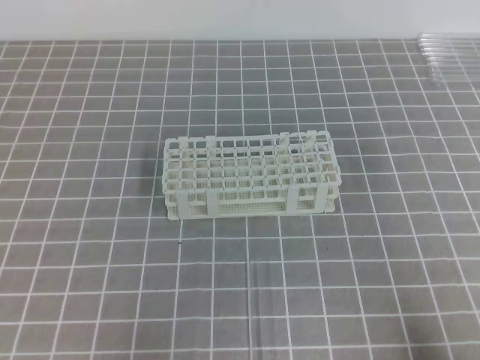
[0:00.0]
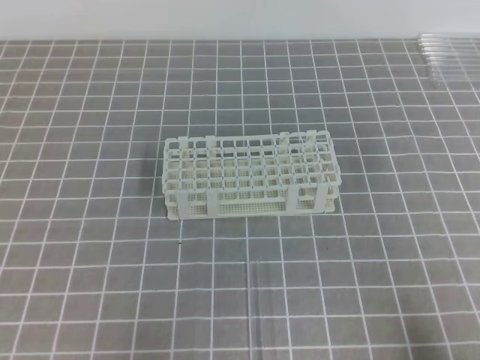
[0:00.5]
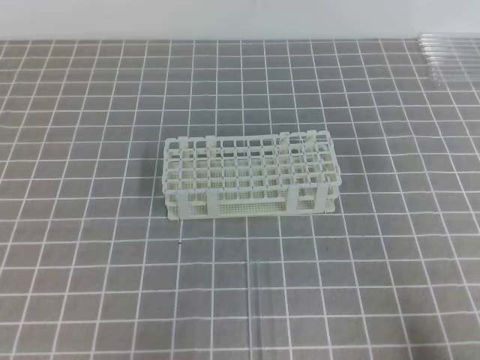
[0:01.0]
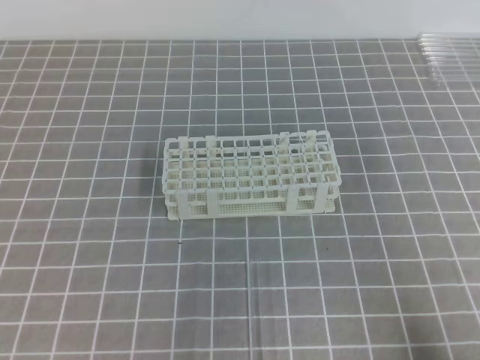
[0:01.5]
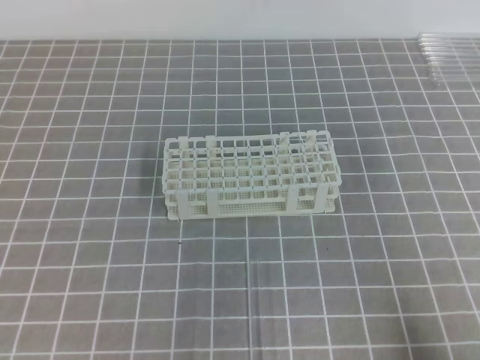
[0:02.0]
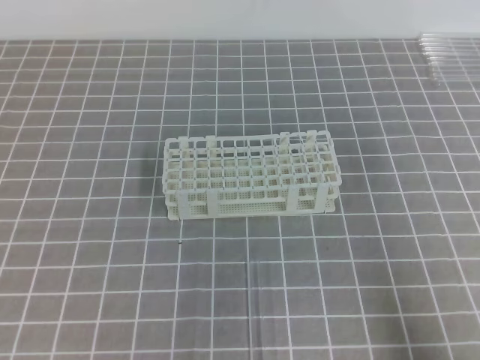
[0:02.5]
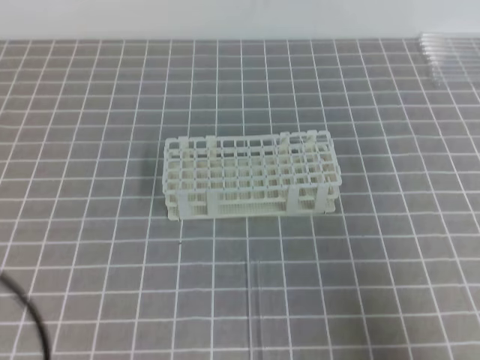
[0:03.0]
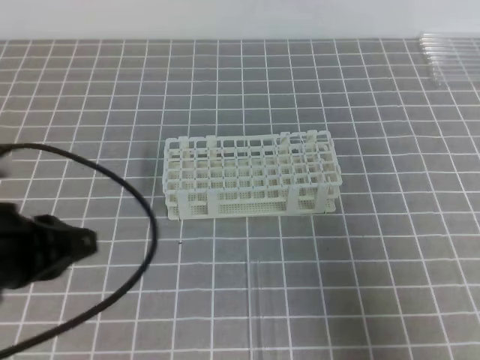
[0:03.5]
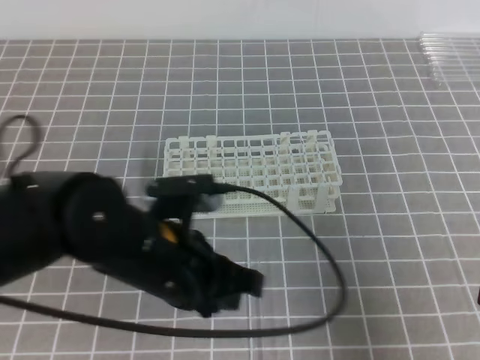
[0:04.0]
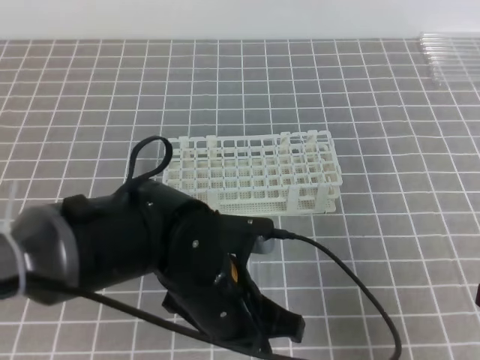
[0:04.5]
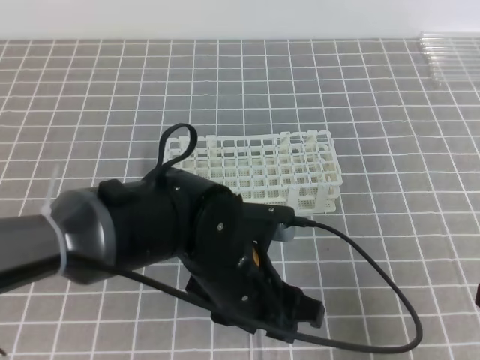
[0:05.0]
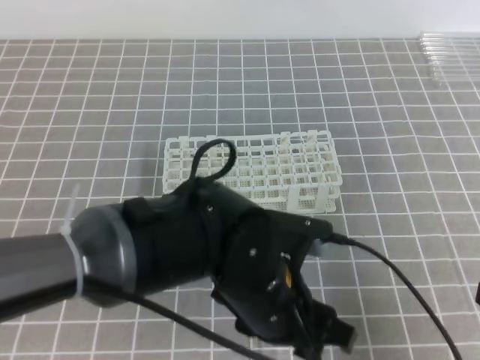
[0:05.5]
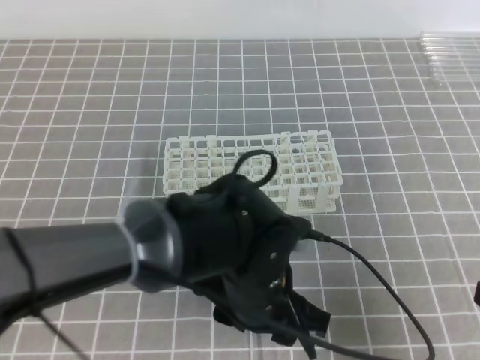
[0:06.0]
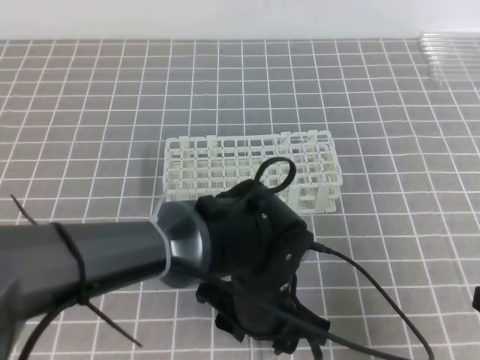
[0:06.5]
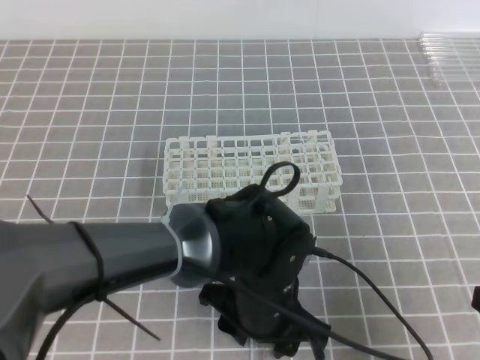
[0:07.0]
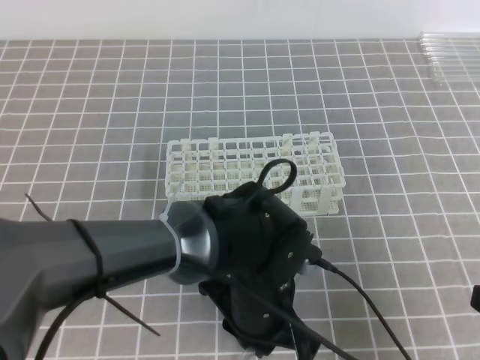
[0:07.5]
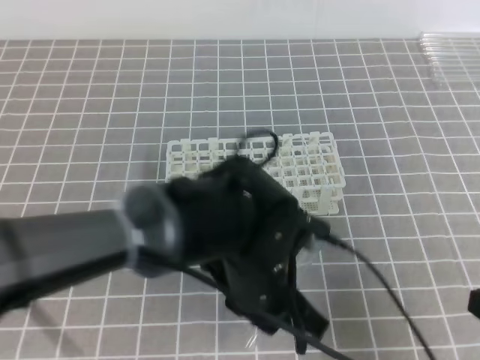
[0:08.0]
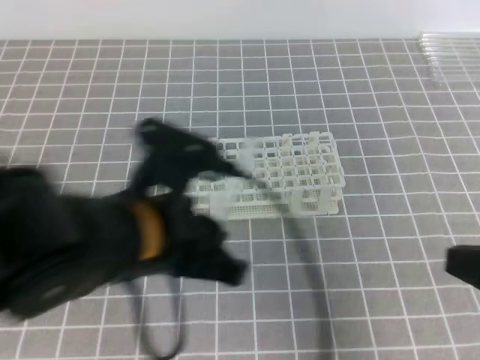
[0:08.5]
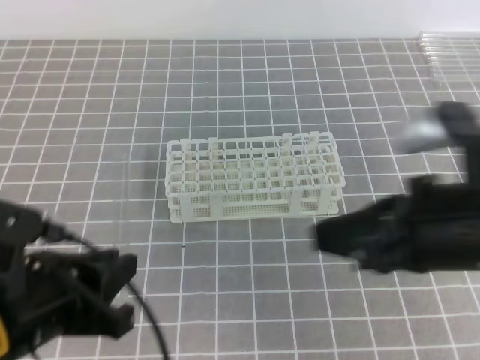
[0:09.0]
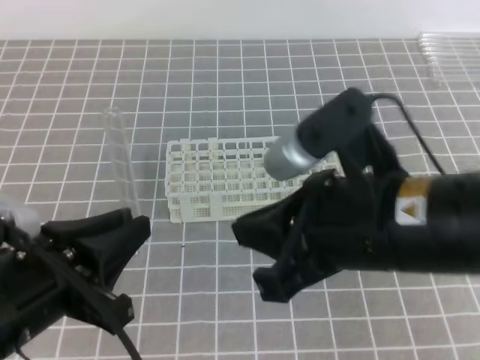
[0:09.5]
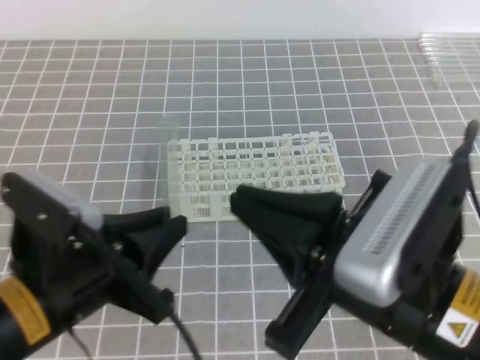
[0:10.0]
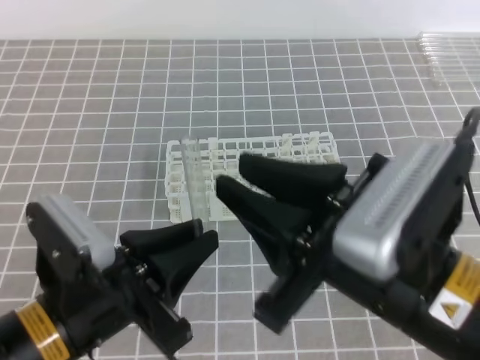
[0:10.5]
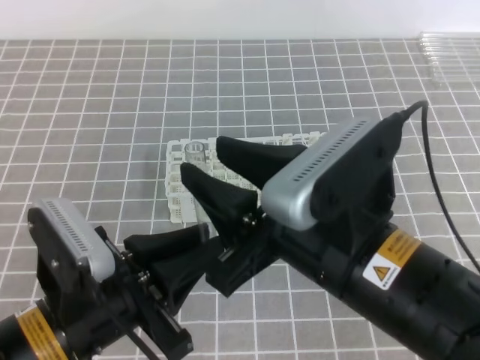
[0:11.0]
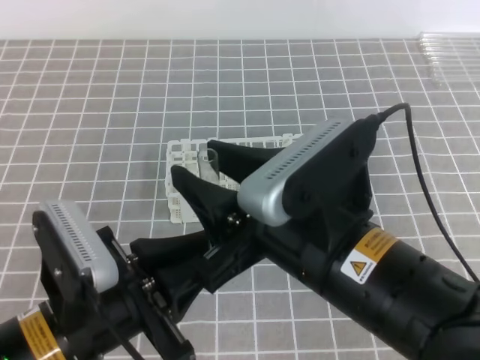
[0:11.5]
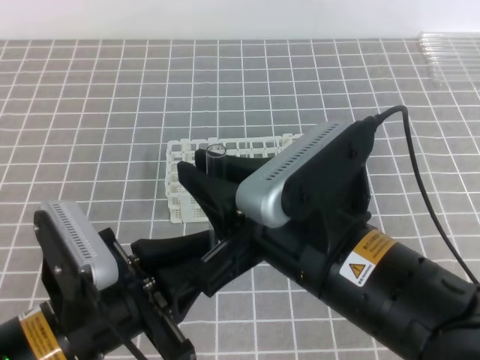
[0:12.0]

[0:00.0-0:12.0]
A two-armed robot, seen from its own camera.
0:02.0 to 0:04.0: The right gripper is displaced upward and forward by roughly 10 cm, while the left gripper goes some 25 cm to the right and forward.
0:04.0 to 0:06.0: The left gripper is displaced to the right by about 10 cm, and opens its fingers.
0:06.0 to 0:08.0: The left gripper closes.
0:08.0 to 0:10.0: The left gripper goes approximately 15 cm to the left. The right gripper shifts roughly 20 cm to the left and upward.
0:10.0 to 0:12.0: The right gripper changes place by approximately 5 cm, and opens, then closes once more.

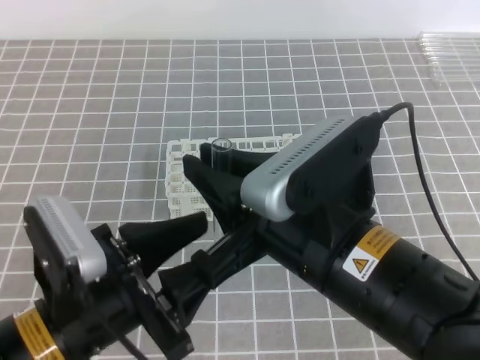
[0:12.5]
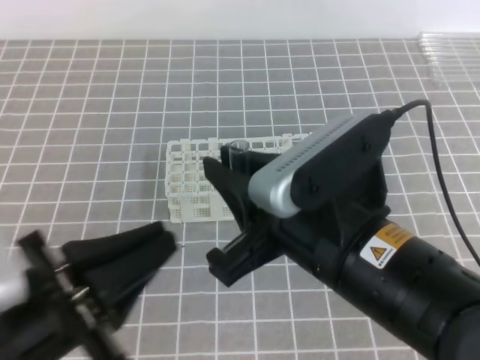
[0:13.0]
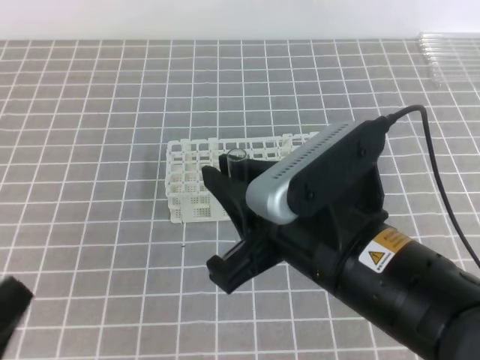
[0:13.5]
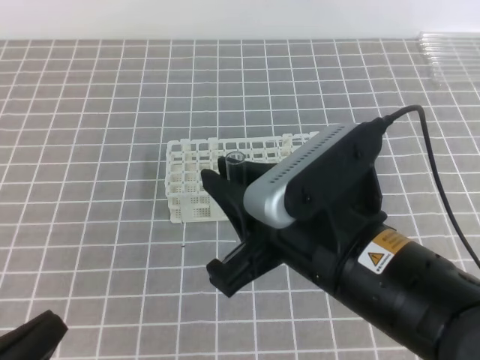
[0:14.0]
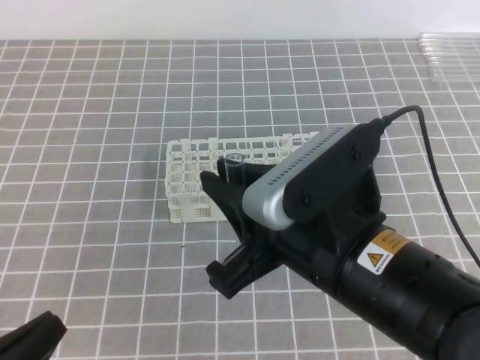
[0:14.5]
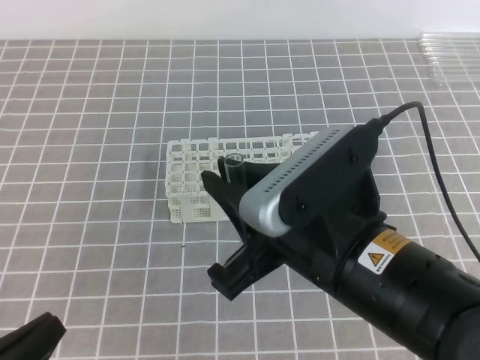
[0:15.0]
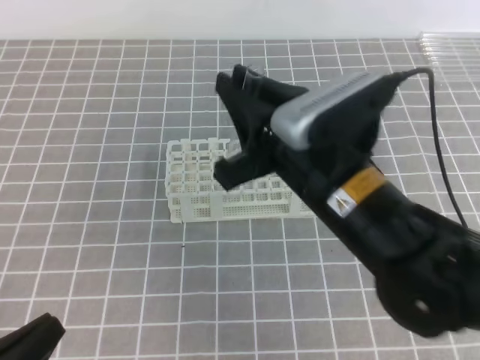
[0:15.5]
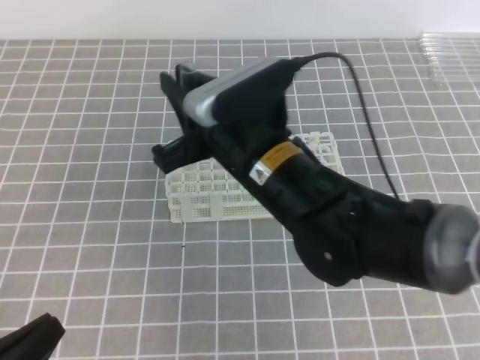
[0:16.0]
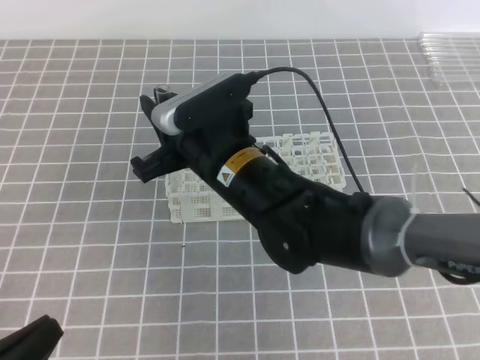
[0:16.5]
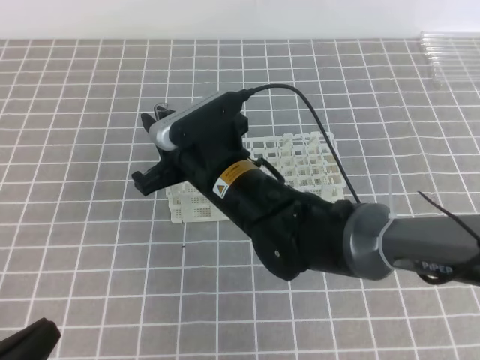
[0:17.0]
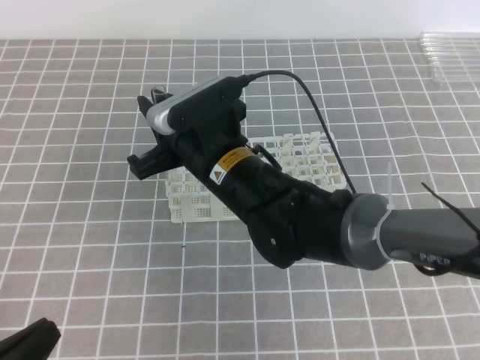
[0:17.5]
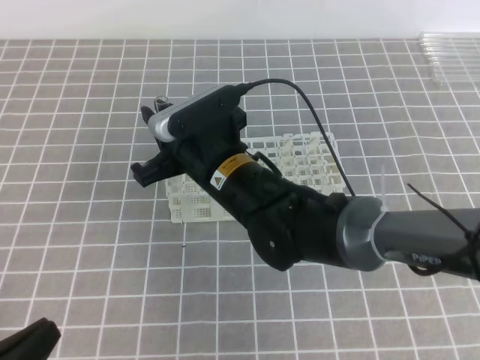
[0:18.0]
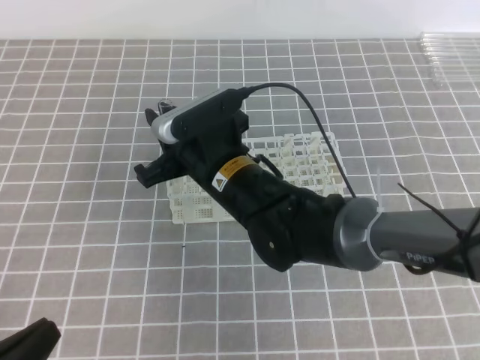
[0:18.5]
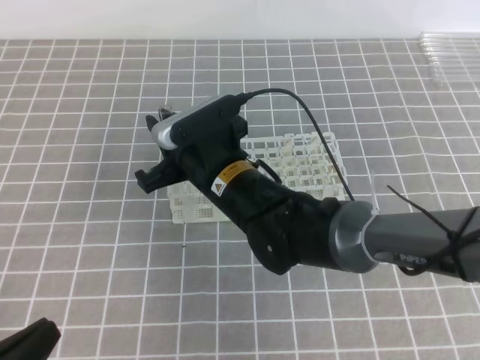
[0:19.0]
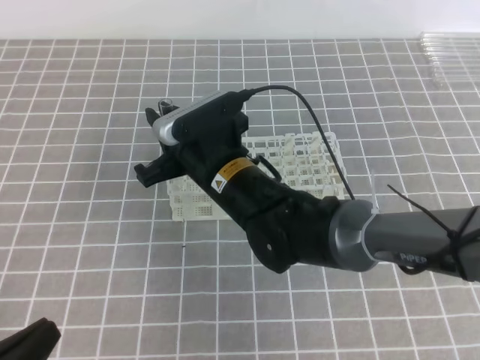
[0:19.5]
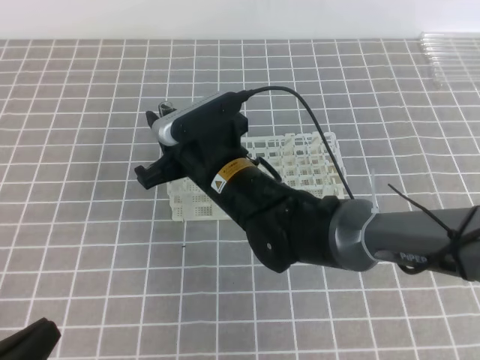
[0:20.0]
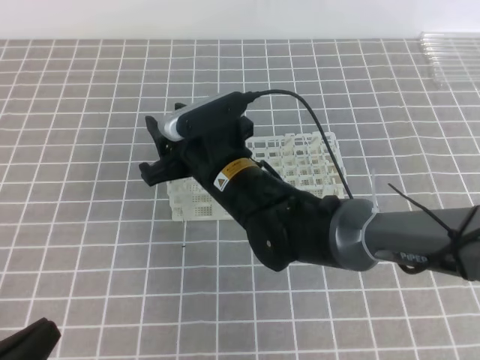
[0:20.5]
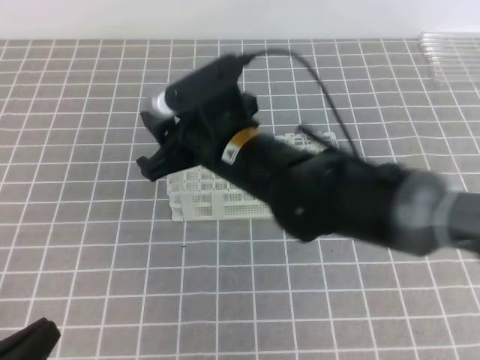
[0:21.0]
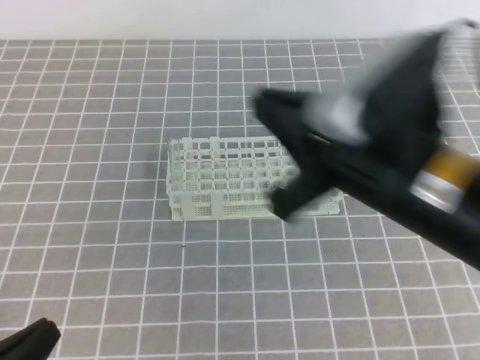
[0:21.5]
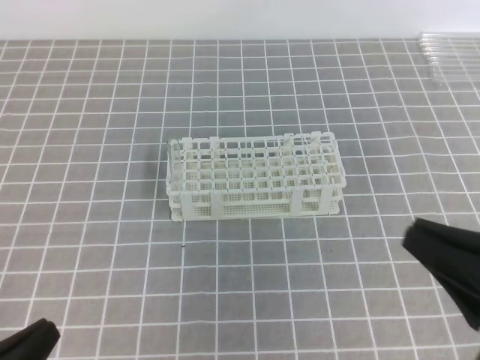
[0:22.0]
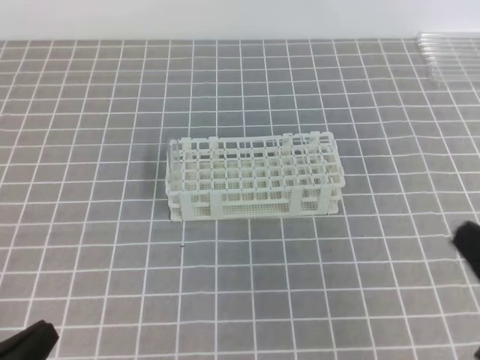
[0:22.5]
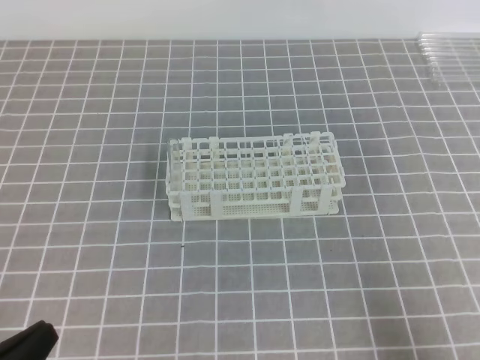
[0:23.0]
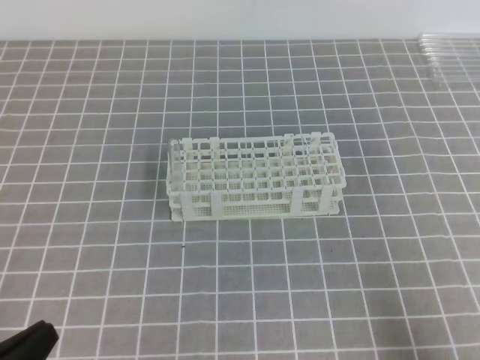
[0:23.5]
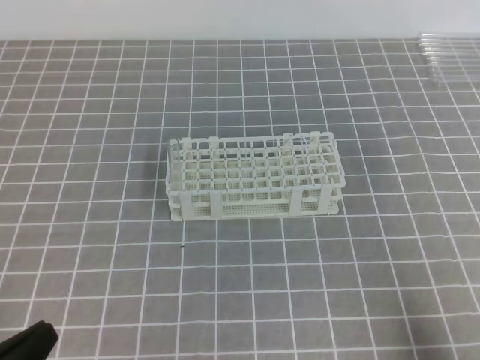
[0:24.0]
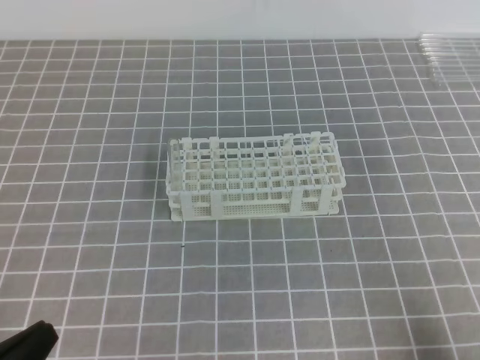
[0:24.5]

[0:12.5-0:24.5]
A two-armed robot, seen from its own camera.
0:12.5 to 0:14.5: The left gripper heads to the left and backward, covering some 15 cm, and closes.
0:14.5 to 0:16.5: The right gripper shifts some 15 cm forward, to the left and downward.
0:16.5 to 0:18.5: The grippers move only a little.
0:18.5 to 0:20.5: The right gripper opens its fingers.
0:20.5 to 0:22.5: The right gripper shifts some 35 cm to the right and backward, and closes up.
0:22.5 to 0:24.5: The right gripper heads downward and to the right, covering roughly 10 cm.

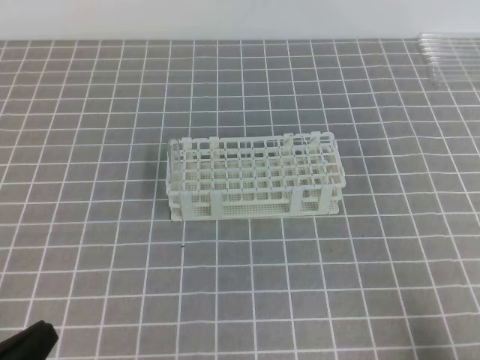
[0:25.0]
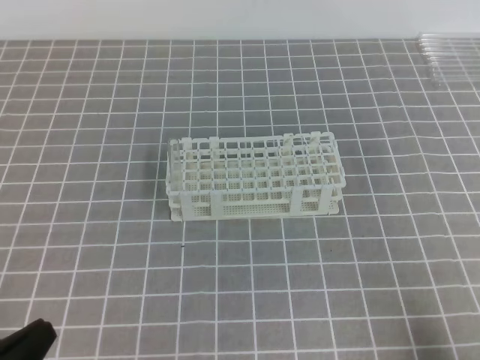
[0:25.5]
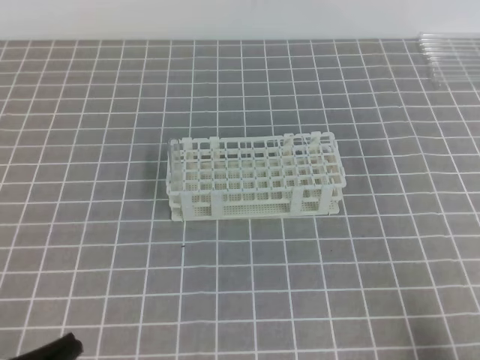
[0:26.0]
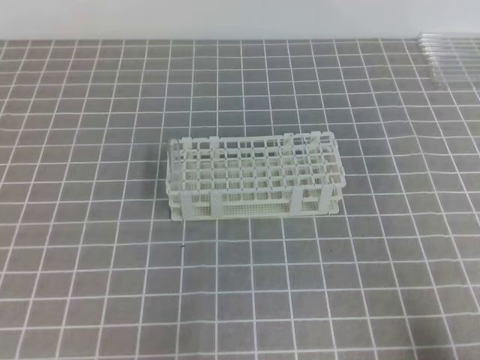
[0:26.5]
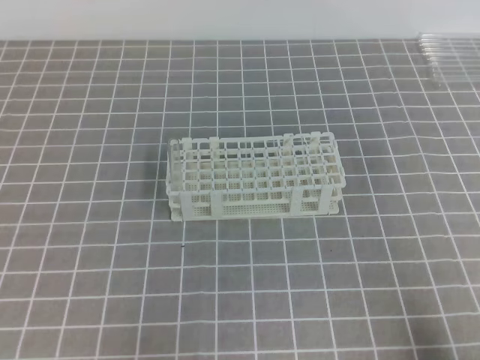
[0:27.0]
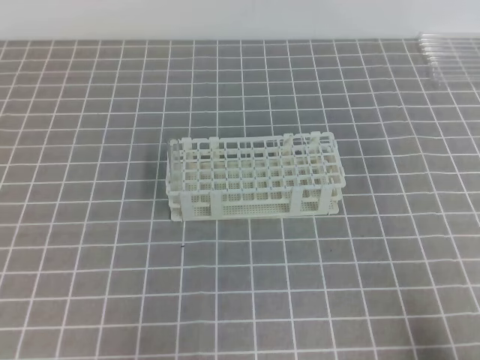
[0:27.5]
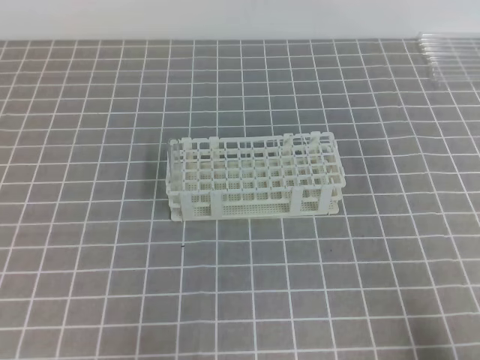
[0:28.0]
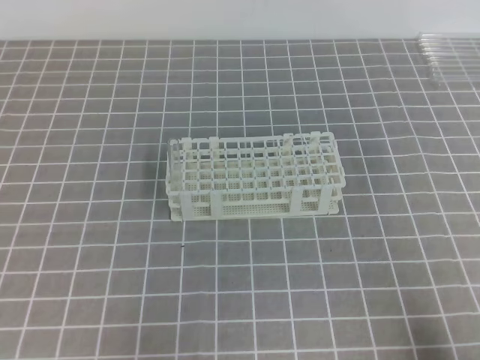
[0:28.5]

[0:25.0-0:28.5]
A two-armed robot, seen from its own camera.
0:27.0 to 0:28.5: The two grippers keep their place.
